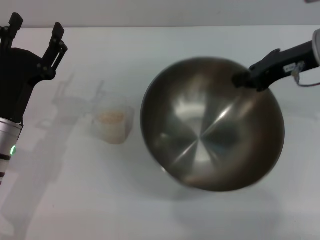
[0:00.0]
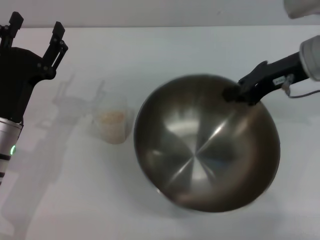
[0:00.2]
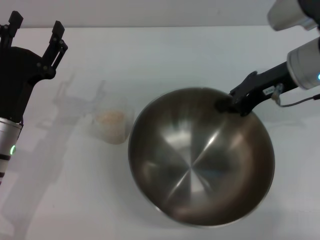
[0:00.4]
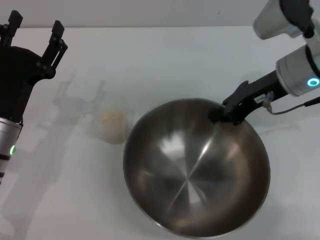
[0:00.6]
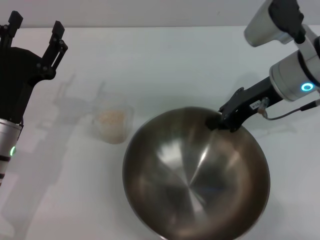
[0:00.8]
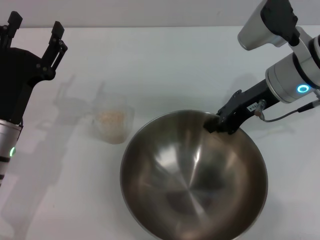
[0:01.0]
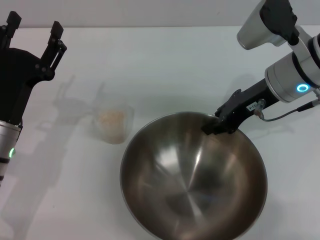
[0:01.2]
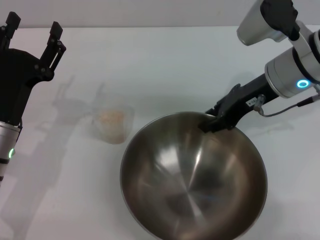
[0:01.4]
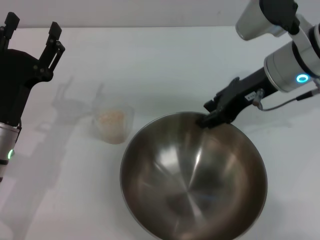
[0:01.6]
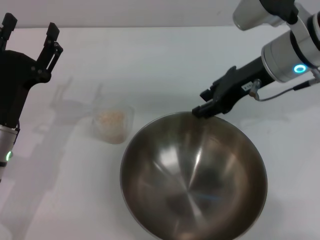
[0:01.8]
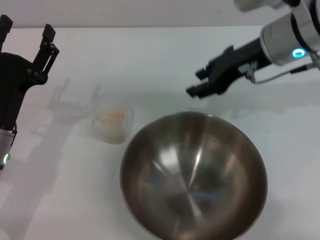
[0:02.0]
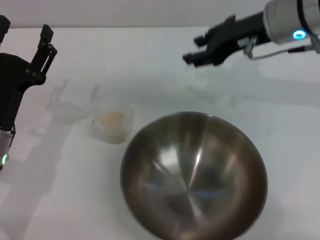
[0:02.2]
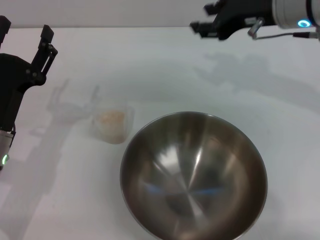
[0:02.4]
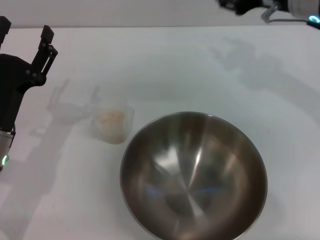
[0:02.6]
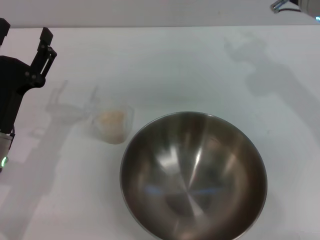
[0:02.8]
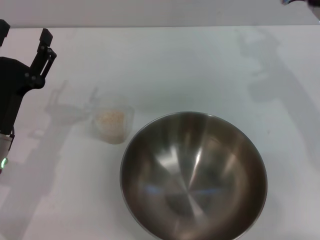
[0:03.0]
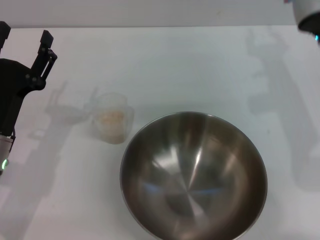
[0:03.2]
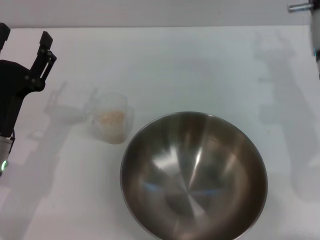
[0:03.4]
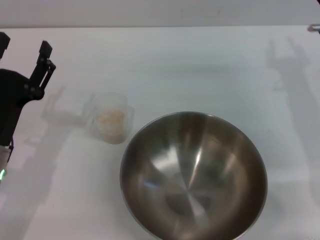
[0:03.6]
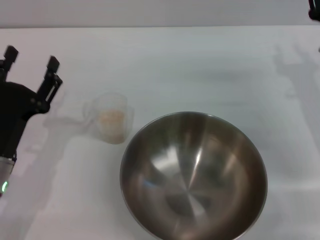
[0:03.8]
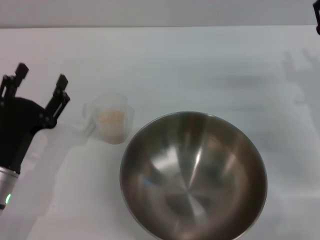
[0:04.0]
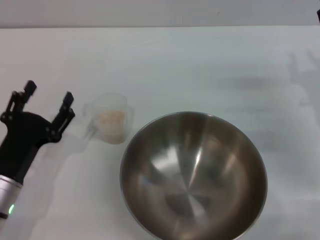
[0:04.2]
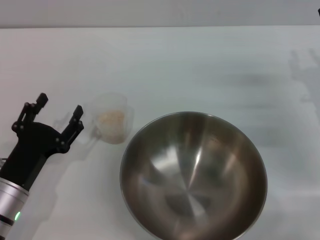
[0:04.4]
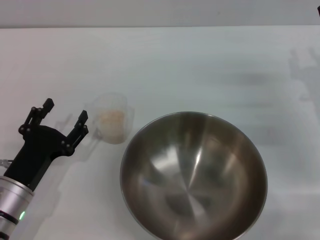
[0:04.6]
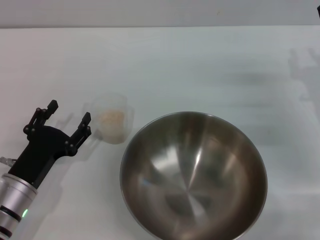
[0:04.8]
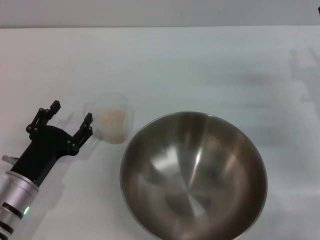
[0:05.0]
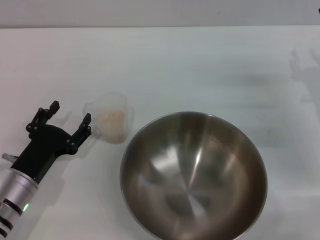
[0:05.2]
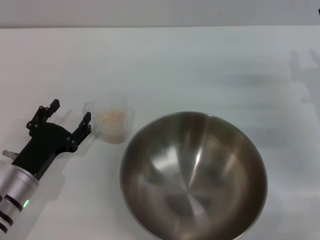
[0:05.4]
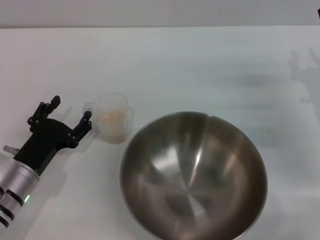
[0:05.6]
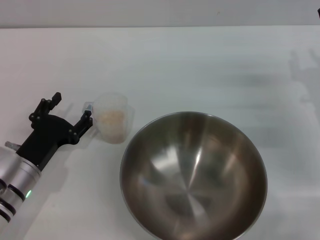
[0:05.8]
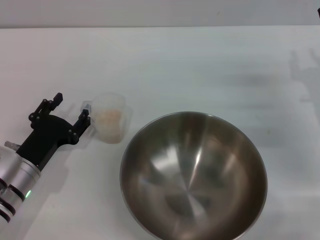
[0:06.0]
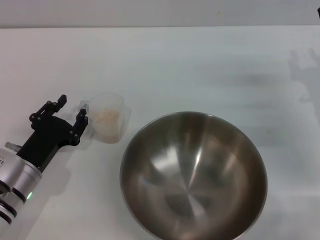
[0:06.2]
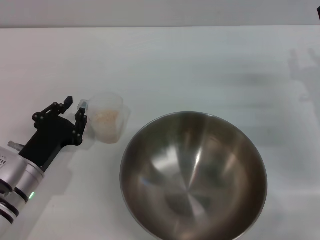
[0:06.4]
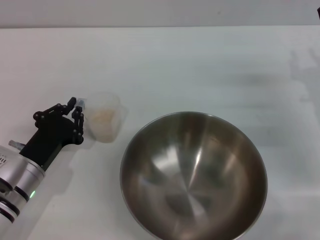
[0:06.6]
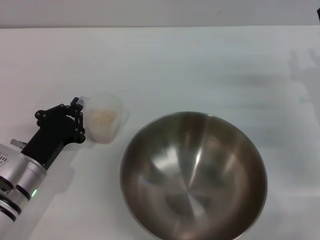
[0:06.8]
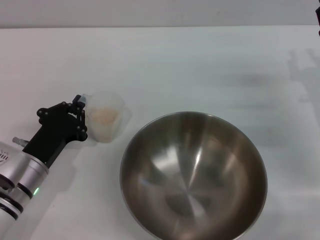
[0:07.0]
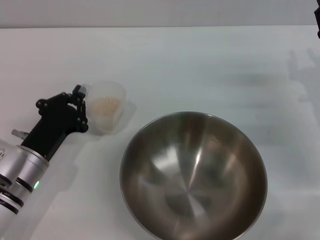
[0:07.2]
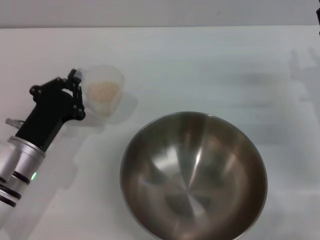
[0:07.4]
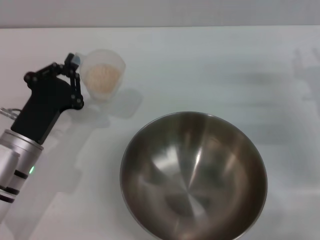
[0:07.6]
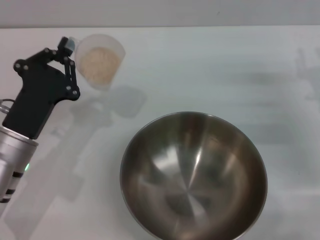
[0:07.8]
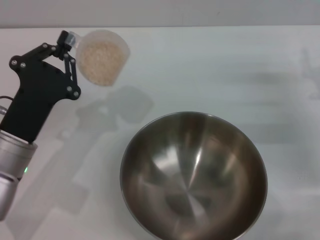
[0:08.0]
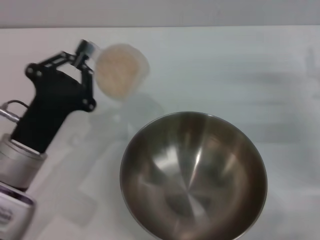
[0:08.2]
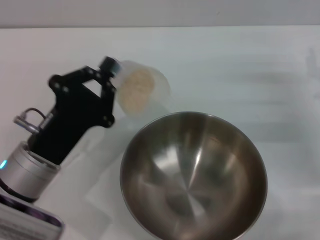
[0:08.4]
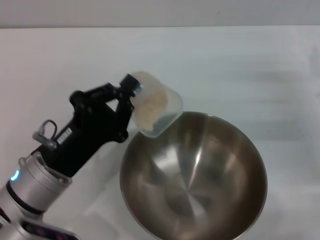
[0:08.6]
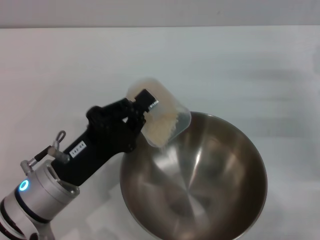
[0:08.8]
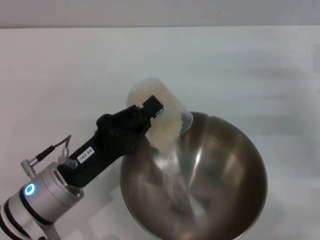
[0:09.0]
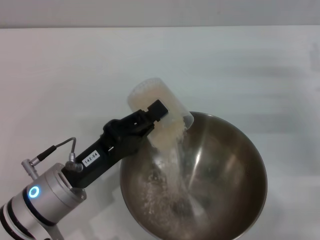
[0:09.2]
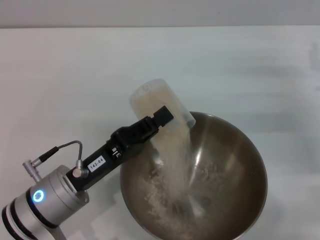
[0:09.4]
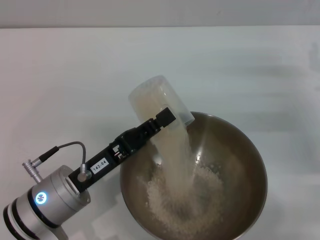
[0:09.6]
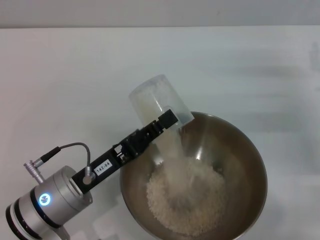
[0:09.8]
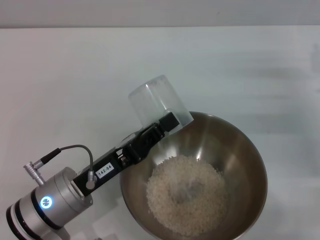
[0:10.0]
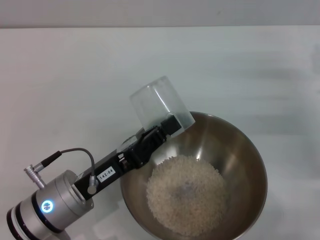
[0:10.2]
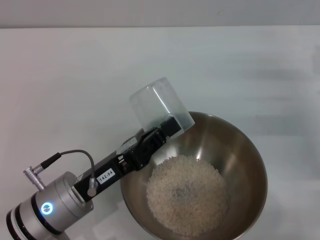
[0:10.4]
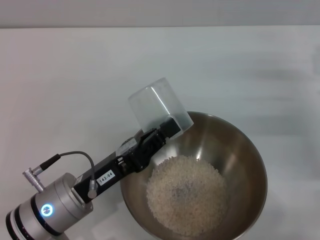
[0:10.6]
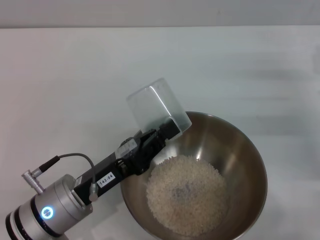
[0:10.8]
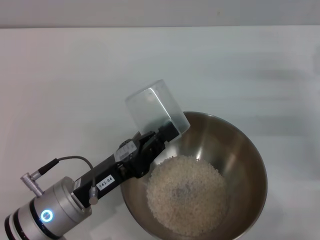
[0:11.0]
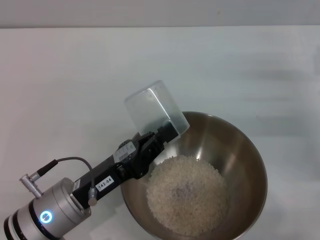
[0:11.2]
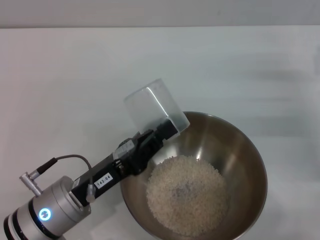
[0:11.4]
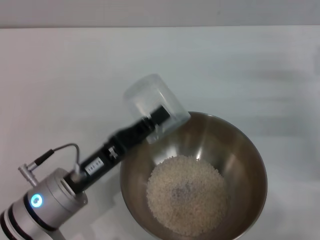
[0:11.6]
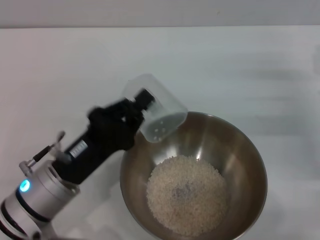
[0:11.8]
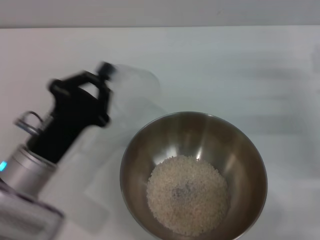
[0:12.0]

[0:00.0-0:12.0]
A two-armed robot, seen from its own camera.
Task of the whole recording: Place the bowl in the middle of the table with one hand and pour the rice from the grain cup into it with the other hand.
Step, 0:00.0 to 0:01.6: Place the bowl in the center of view with the right gripper.
Step, 0:01.8 to 0:07.2: Pick up the cup with rice in it with the left gripper.
Step, 0:07.4 to 0:11.6: Pour the rice from the cup into the bowl with the left gripper.
0:00.0 to 0:01.6: The right gripper moves to the left, approximately 5 cm, and opens up.
0:03.0 to 0:04.4: The right gripper heads downward and to the right, covering approximately 15 cm; the left gripper is displaced downward by approximately 5 cm.
0:04.4 to 0:06.0: The grippers stay close to where they were, moving slightly.
0:06.0 to 0:07.6: The left gripper closes its fingers.
0:07.6 to 0:09.0: The left gripper shifts by approximately 5 cm.

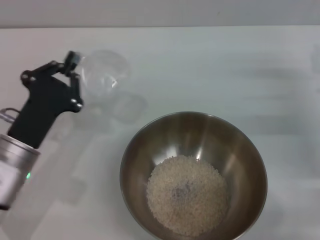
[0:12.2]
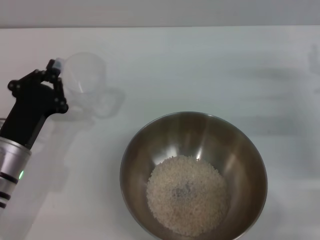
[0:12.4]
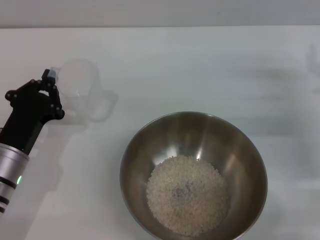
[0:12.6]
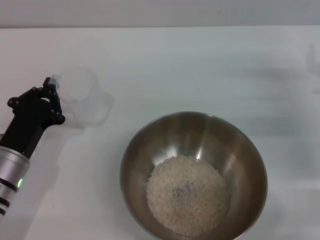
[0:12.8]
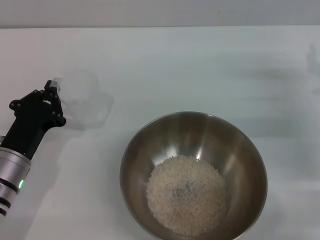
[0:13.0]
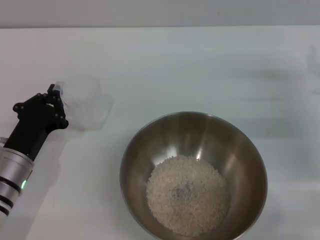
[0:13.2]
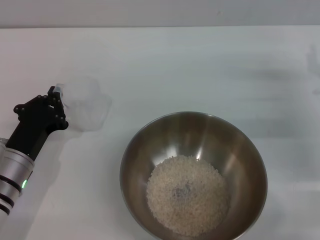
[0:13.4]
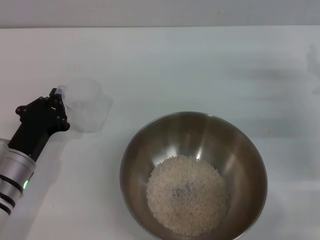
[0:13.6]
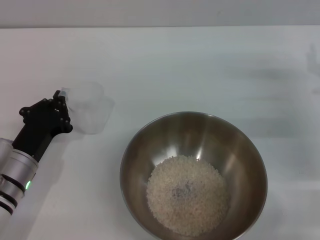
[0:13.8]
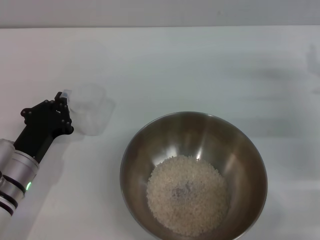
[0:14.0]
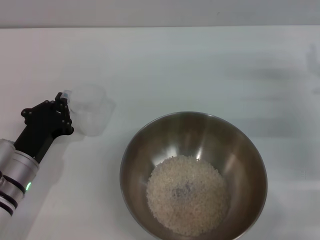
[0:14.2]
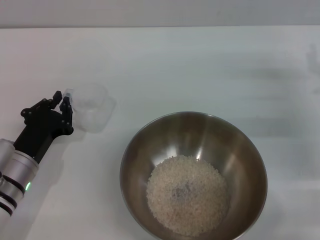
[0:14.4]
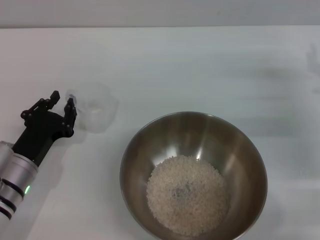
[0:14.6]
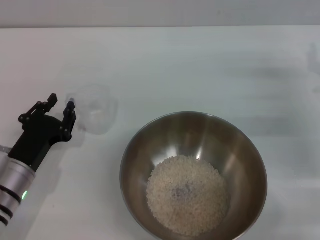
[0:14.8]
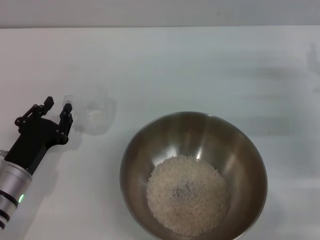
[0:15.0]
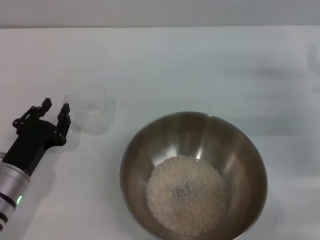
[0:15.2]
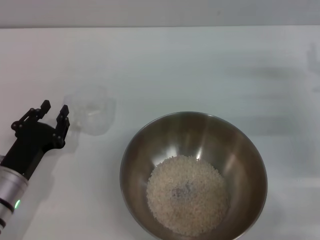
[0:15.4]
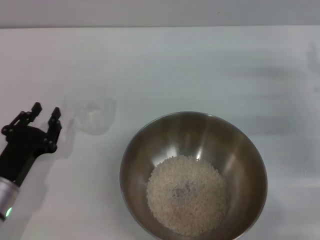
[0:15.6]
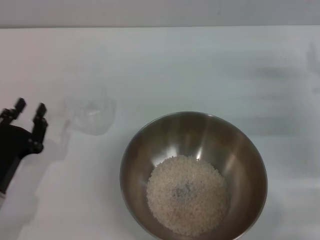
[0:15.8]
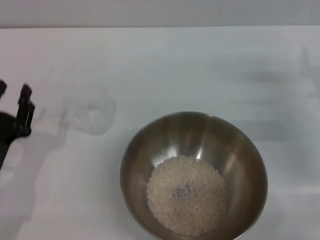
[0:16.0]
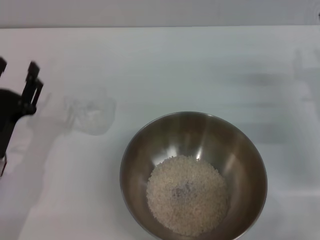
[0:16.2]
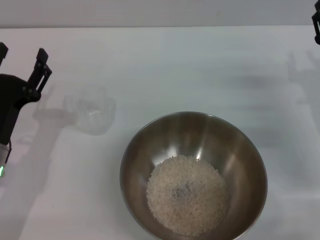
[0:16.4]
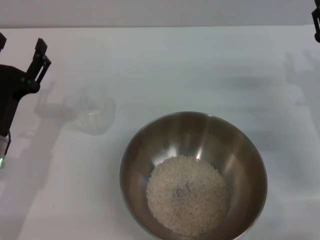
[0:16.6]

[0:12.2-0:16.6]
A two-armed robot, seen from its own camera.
Task of the whole recording: Place the bowl in the middle of the table with one hand and pour the rice from the grain cup into it with the other hand.
Step, 0:12.2 to 0:15.4: Place the cup on the table with the left gripper.
0:13.6 to 0:15.2: The left gripper opens up.
0:15.2 to 0:16.6: The left gripper is displaced upward by approximately 5 cm, and opens its fingers.

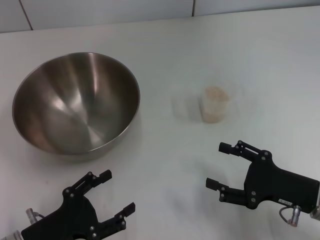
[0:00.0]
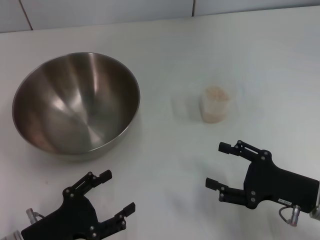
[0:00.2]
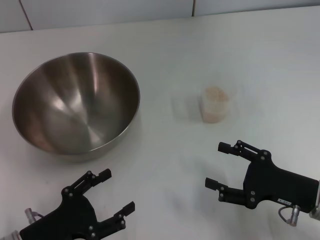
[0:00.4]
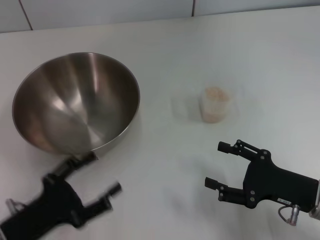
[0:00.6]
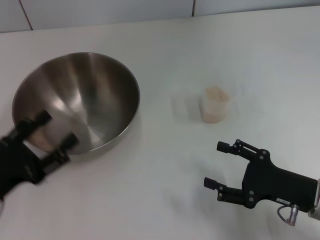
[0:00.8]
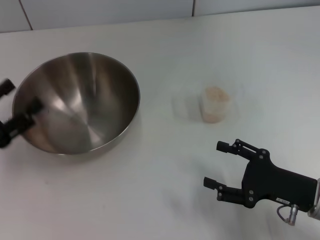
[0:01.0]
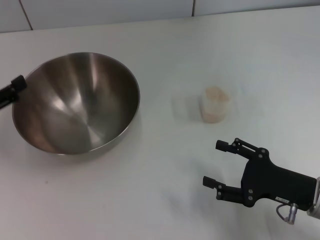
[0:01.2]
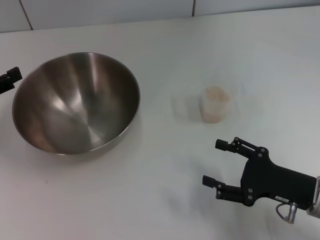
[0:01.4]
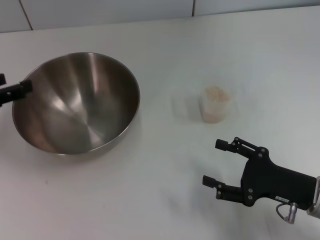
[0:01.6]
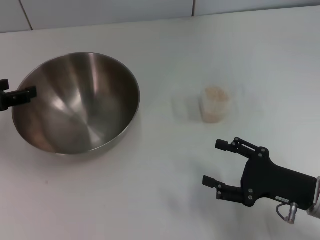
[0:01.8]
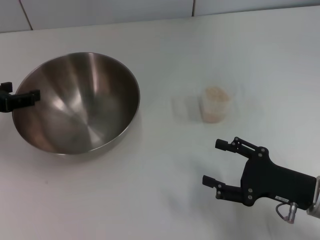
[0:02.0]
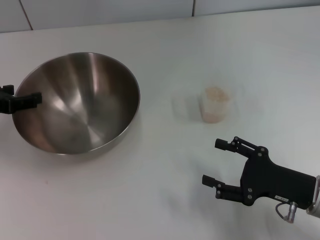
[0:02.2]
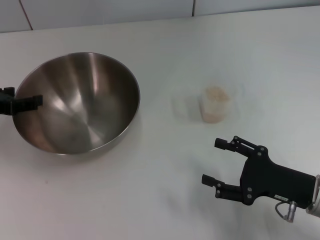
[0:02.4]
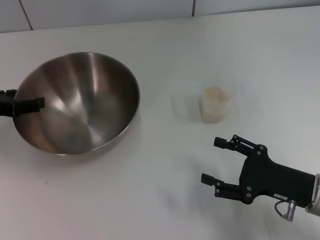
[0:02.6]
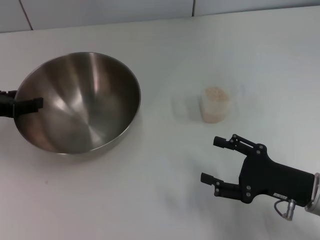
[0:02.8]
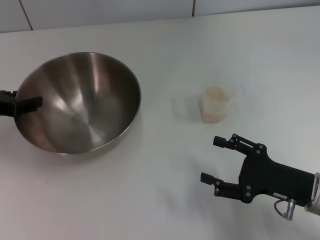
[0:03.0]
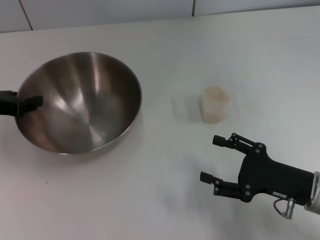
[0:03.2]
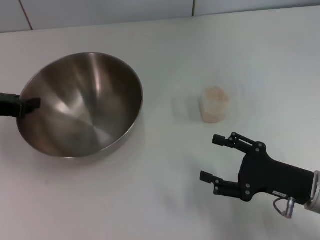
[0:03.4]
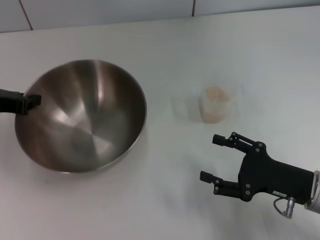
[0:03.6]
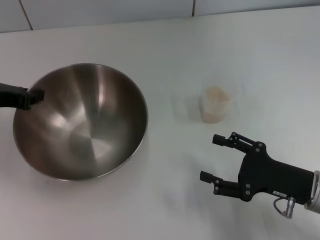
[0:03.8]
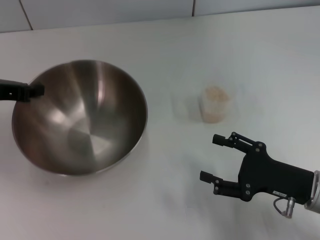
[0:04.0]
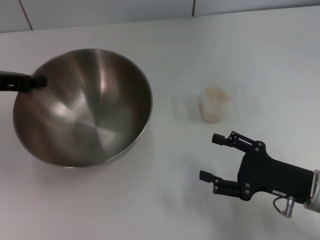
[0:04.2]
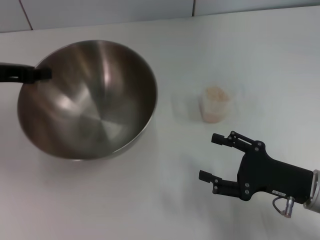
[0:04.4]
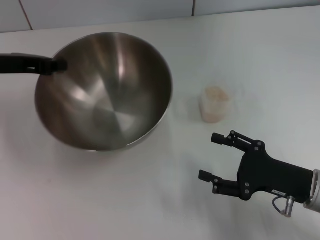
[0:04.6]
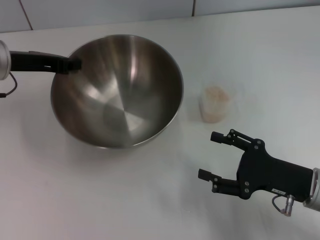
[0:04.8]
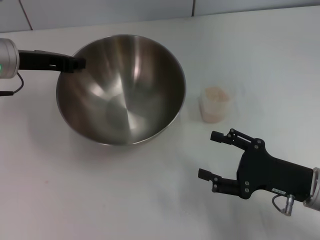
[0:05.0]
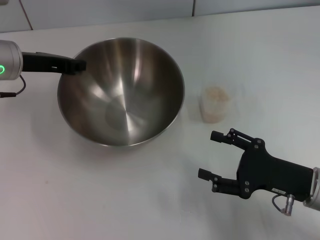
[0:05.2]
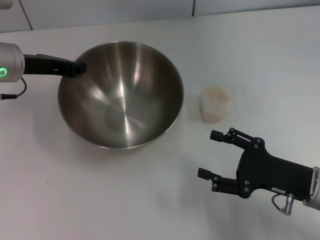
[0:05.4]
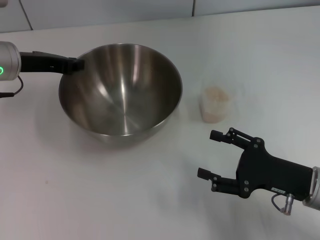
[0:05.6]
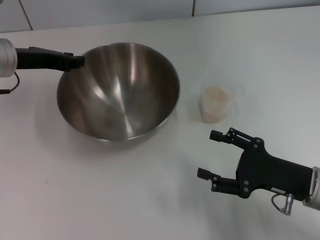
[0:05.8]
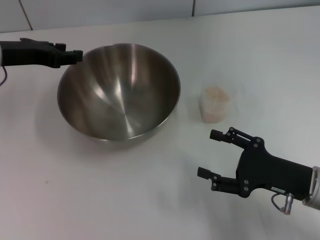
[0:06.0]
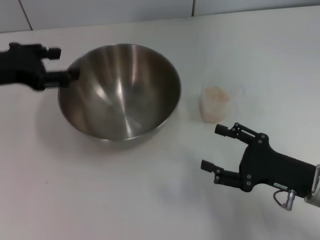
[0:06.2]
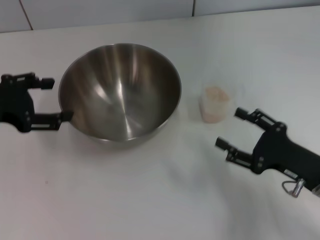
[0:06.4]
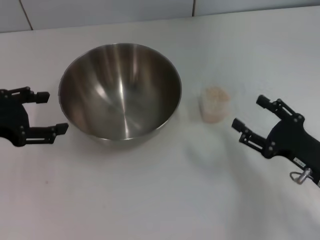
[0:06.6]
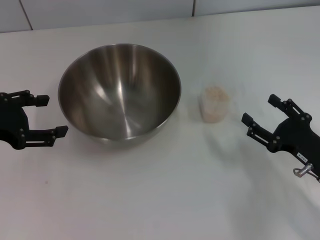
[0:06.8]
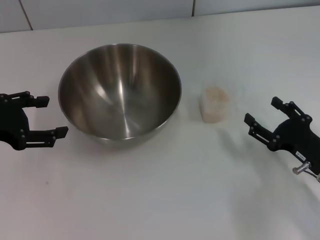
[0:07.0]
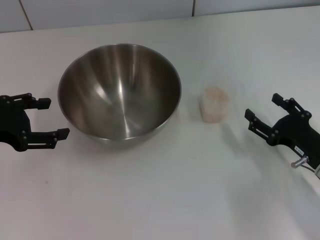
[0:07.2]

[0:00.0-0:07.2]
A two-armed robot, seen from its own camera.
Task of the whole recording: Place the bowl in the middle of the table with one hand and pour the rice from the grain cup into it with the other hand.
Step, 0:00.0 to 0:04.2: Pick up the bowl with the left gripper.
Step, 0:04.4 to 0:06.2: Place the bowl in the center of view with the left gripper.
0:00.0 to 0:01.4: The left gripper is displaced upward, forward and to the left by some 20 cm.
0:01.4 to 0:02.8: The left gripper moves approximately 5 cm.
0:02.8 to 0:04.4: The left gripper moves about 5 cm, and closes.
0:04.4 to 0:05.8: The left gripper shifts approximately 5 cm to the right.
0:05.8 to 0:07.2: The left gripper goes some 15 cm backward and to the left, and opens.
